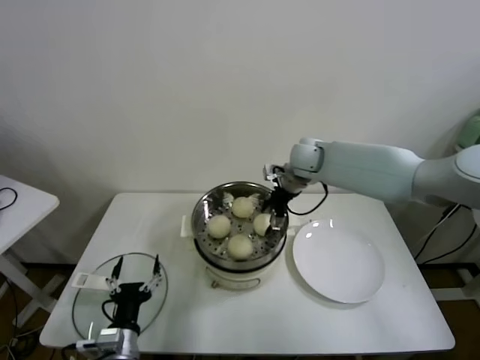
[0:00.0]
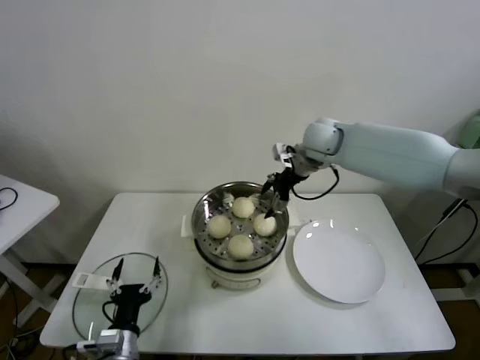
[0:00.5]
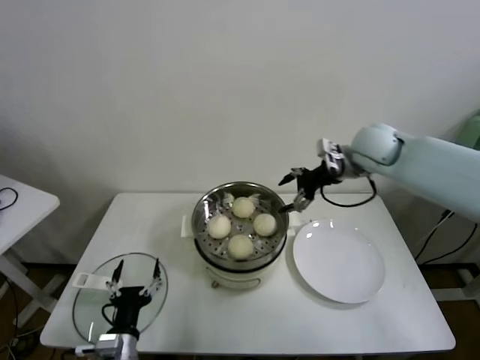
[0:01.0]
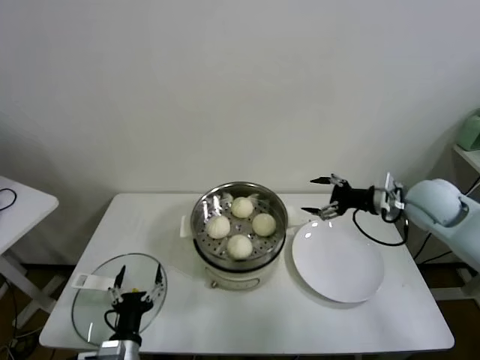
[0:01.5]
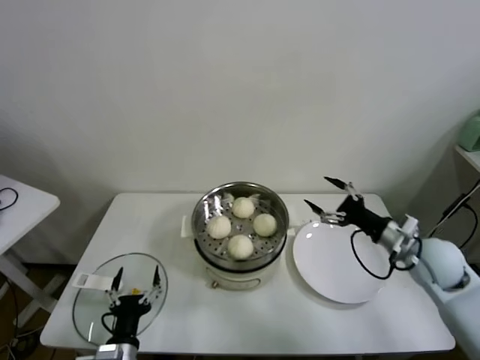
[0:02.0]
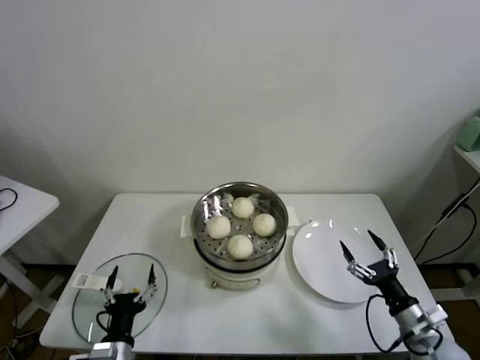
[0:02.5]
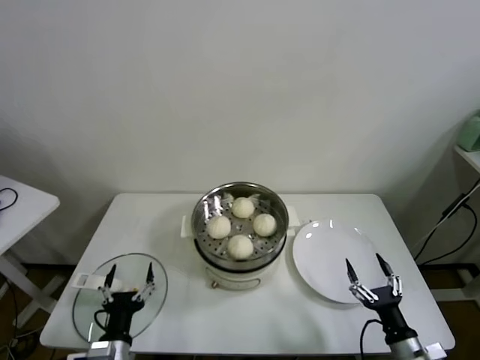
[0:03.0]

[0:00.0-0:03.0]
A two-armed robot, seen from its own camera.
Task of the whole recording: take steamed baozi put them in steamer.
0:00.0 to 0:01.5: The right gripper is displaced to the right and backward by about 25 cm.
0:01.5 to 0:03.0: The right gripper goes about 40 cm backward and downward.

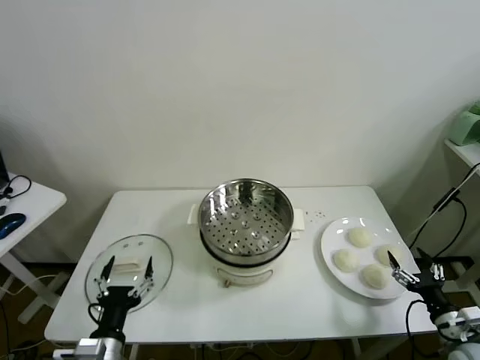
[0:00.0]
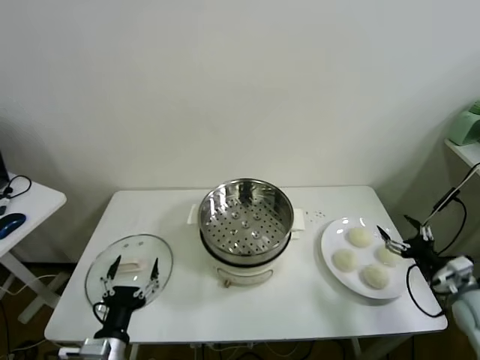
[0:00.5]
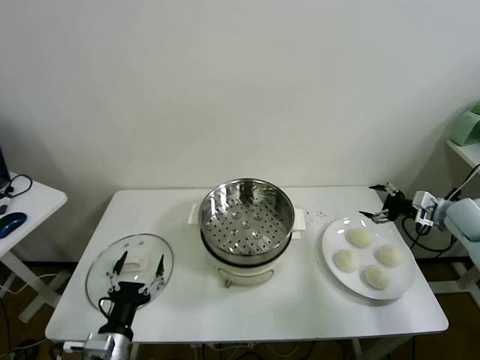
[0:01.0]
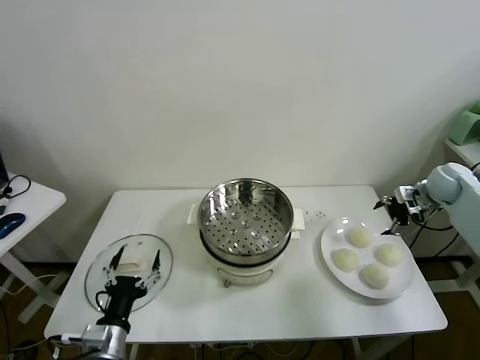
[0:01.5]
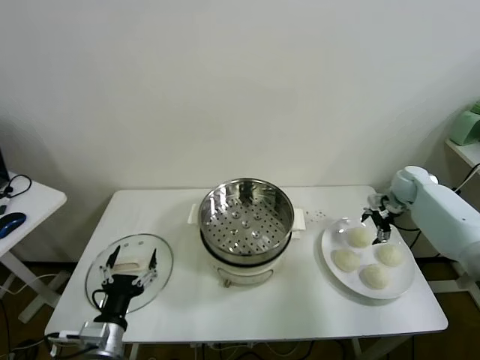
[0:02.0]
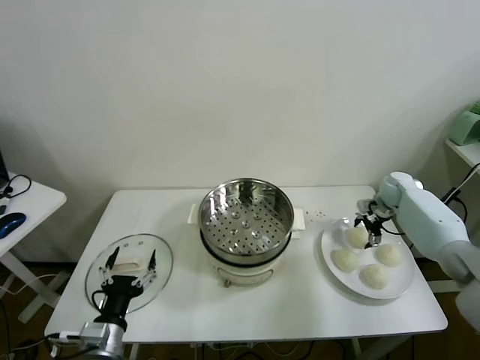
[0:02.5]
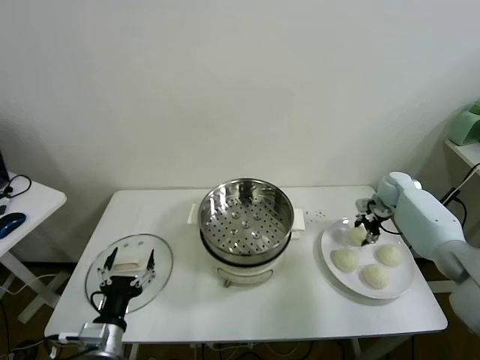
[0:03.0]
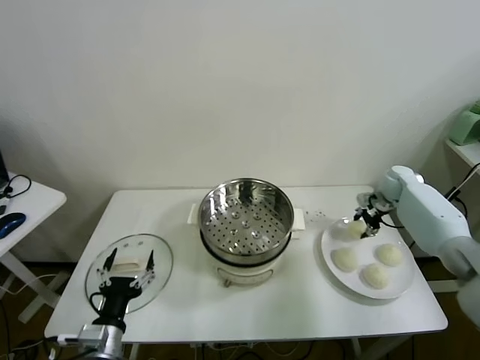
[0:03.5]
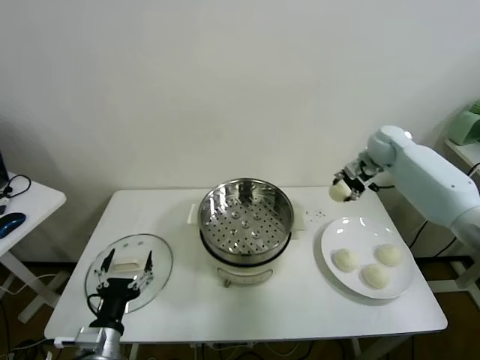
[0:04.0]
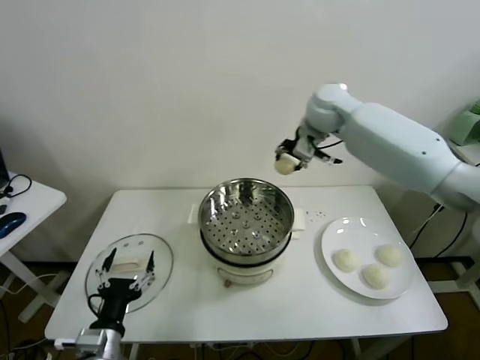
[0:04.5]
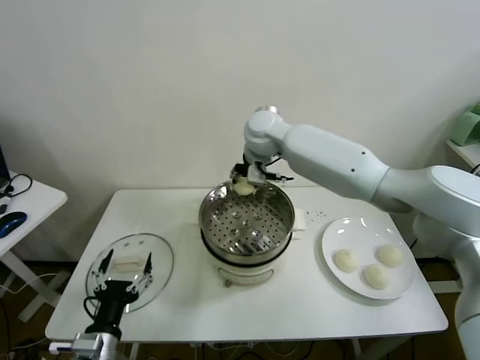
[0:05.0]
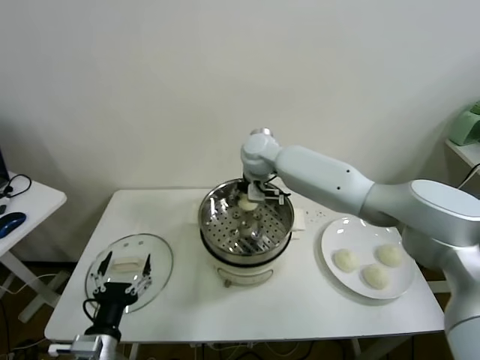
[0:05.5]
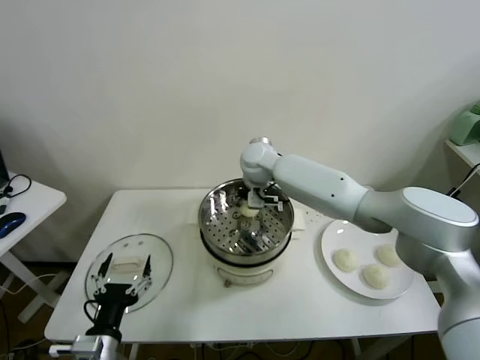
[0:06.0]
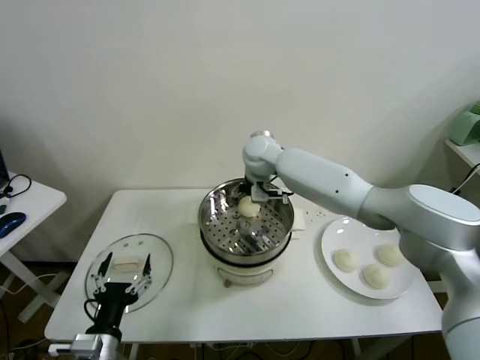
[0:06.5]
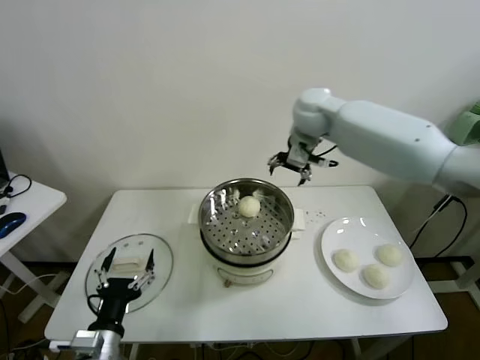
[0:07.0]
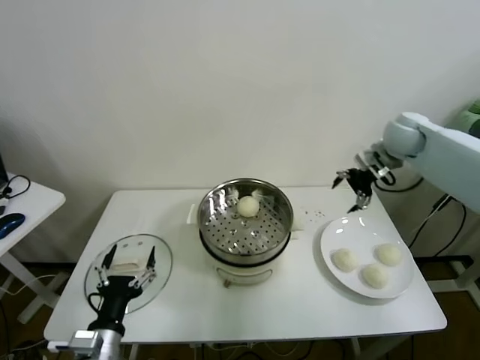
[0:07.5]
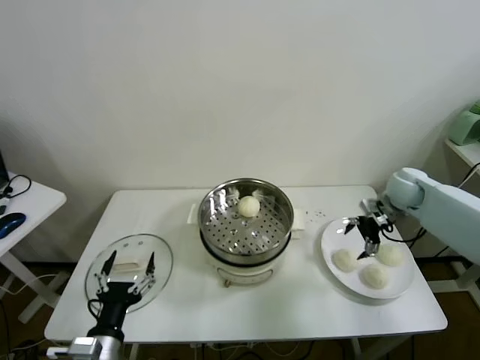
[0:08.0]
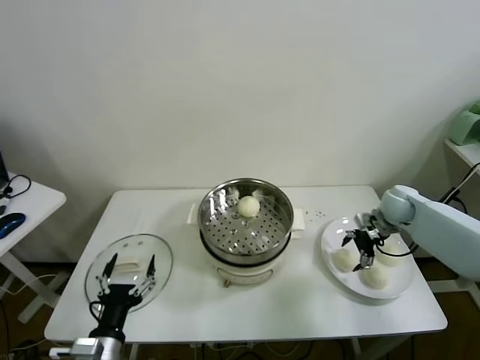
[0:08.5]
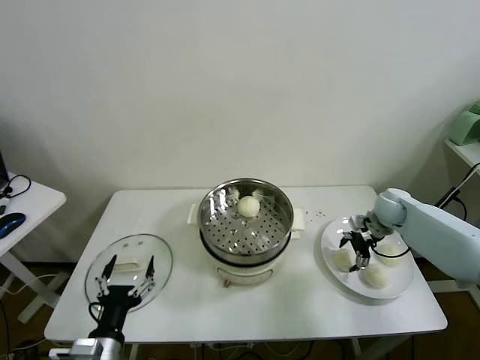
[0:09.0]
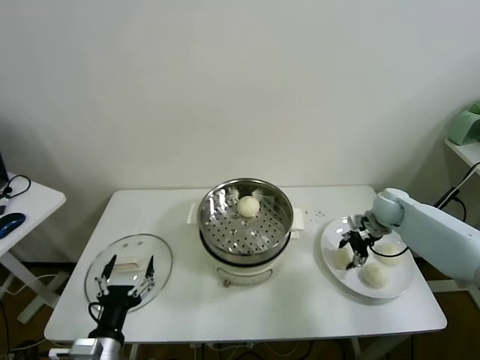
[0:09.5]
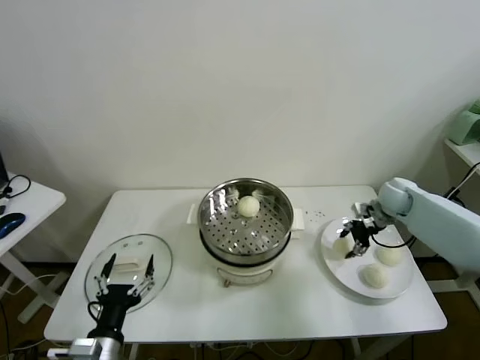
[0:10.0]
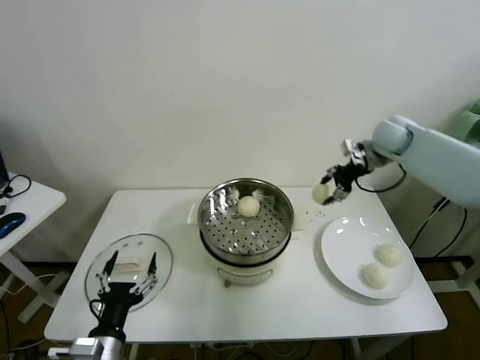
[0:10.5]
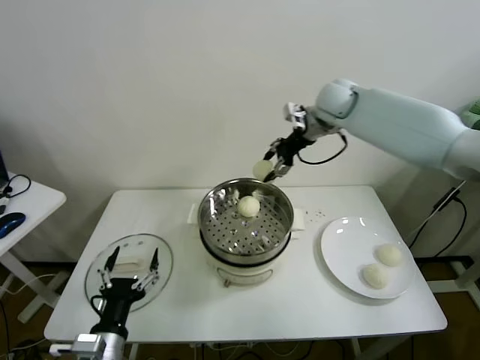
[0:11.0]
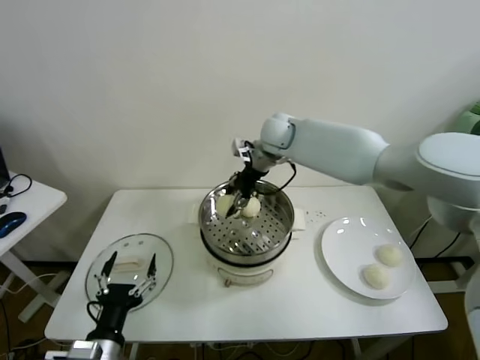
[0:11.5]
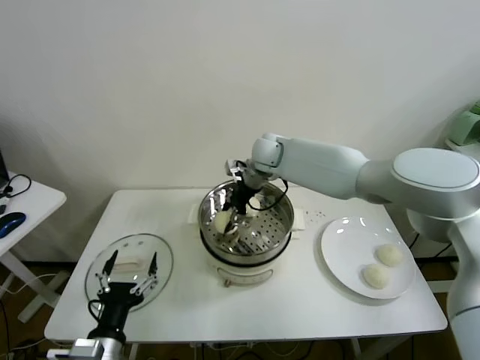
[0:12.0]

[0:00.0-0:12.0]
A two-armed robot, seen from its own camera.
Task of the whole recording: take steamed baozi put them in steamer.
Step, 0:00.0 to 0:03.0: Grasp the baozi in the plate with right gripper.
Step, 0:03.5 to 0:06.0: Place the baozi on the steamer with right gripper.
Step, 0:06.5 to 0:09.5: Grasp the baozi in the plate with right gripper.
0:02.0 to 0:04.0: The right gripper heads upward and to the left, covering about 20 cm, and closes up.
0:04.0 to 0:06.0: The right gripper heads to the left, covering about 30 cm, and opens up.
0:06.0 to 0:08.0: The right gripper shifts approximately 35 cm to the right.
0:08.0 to 0:10.0: The right gripper closes up.
0:10.0 to 0:12.0: The right gripper travels to the left by about 35 cm.

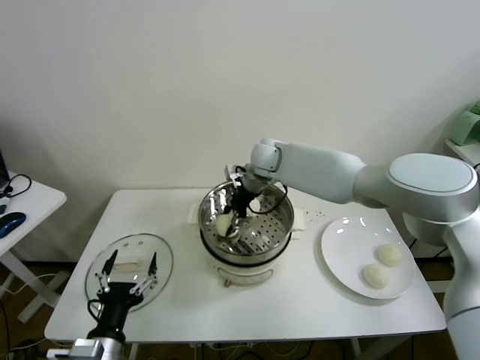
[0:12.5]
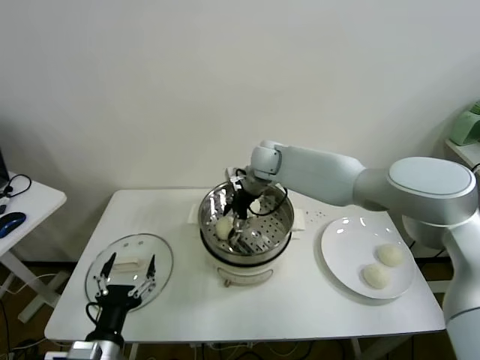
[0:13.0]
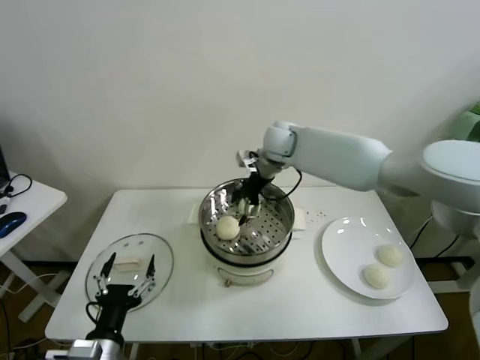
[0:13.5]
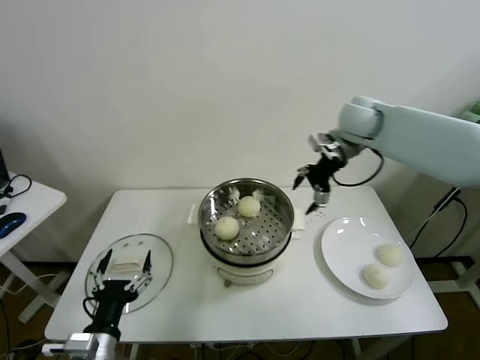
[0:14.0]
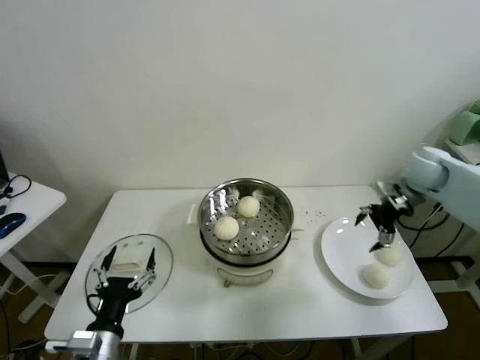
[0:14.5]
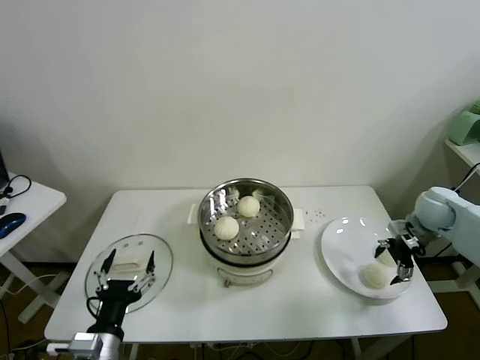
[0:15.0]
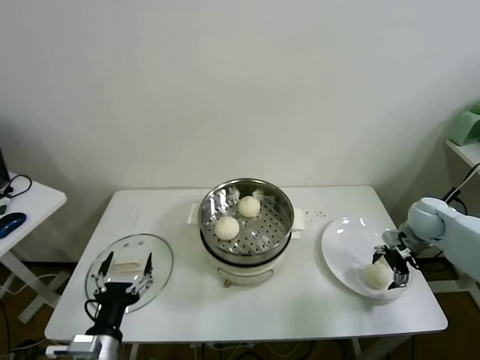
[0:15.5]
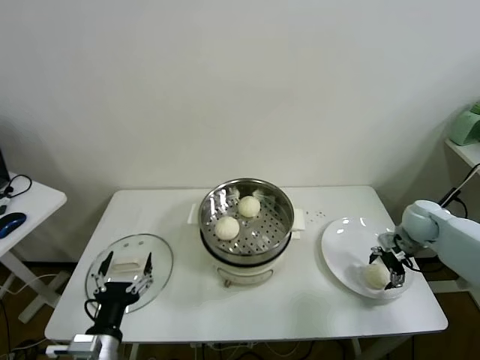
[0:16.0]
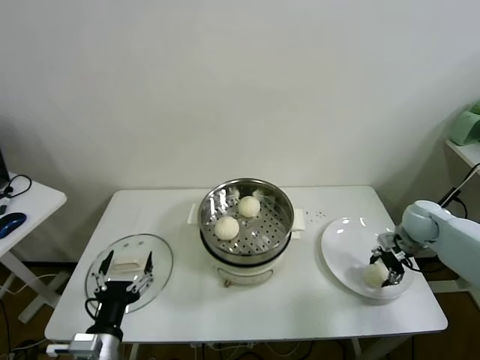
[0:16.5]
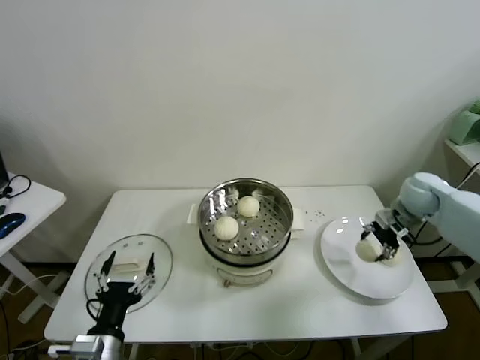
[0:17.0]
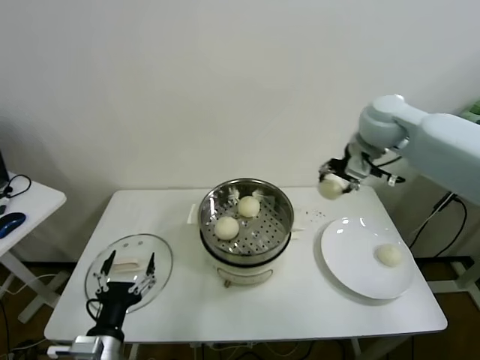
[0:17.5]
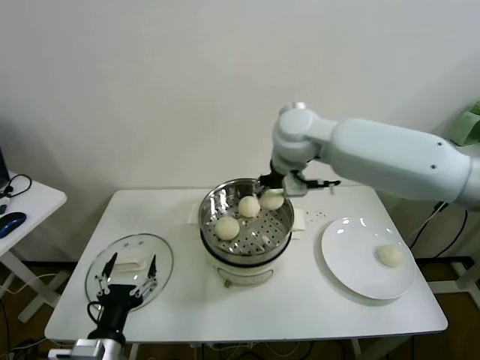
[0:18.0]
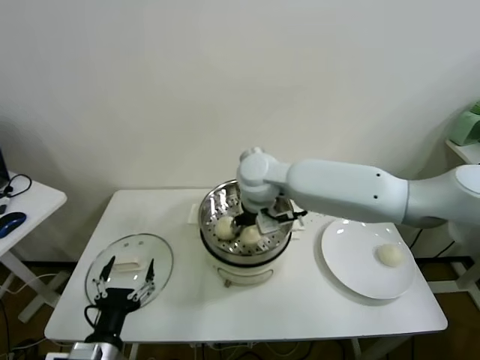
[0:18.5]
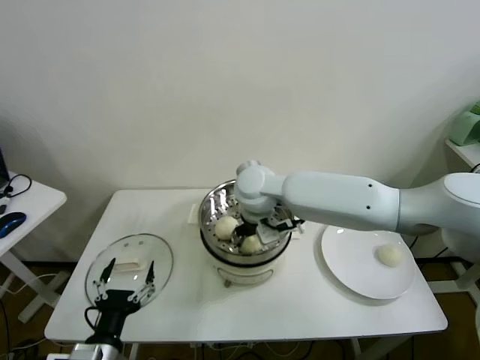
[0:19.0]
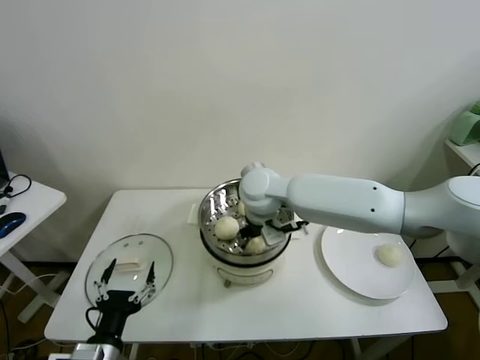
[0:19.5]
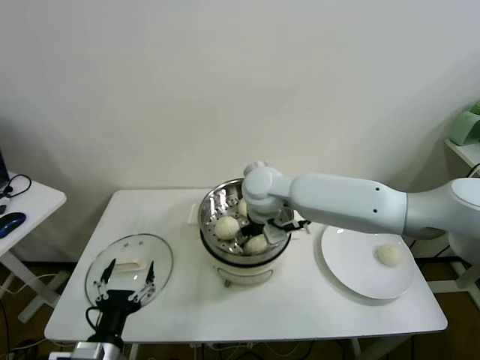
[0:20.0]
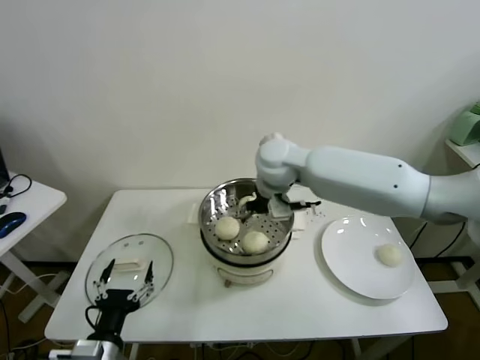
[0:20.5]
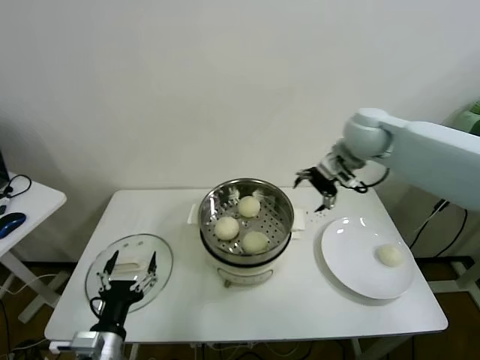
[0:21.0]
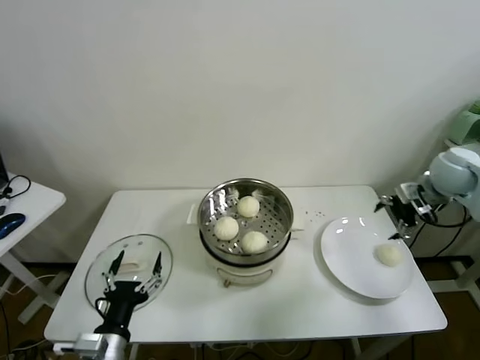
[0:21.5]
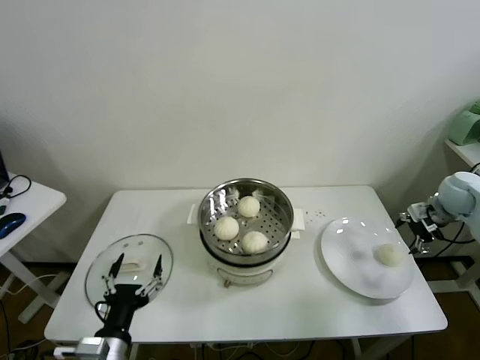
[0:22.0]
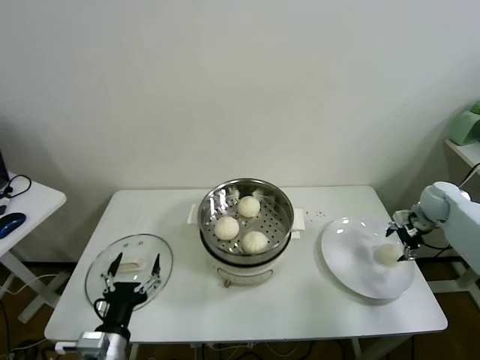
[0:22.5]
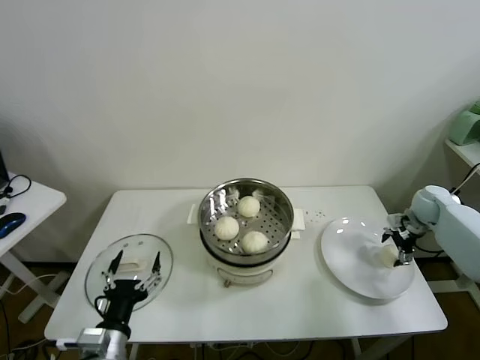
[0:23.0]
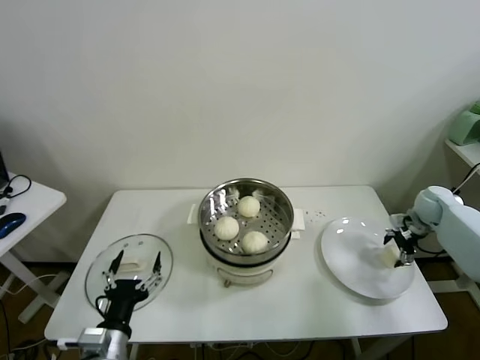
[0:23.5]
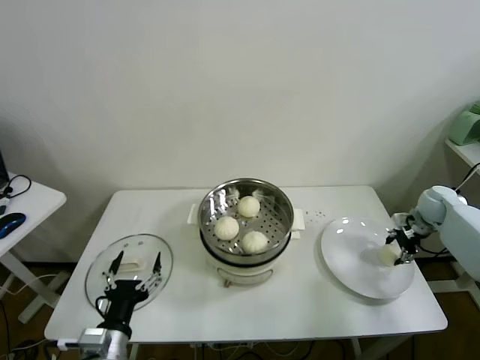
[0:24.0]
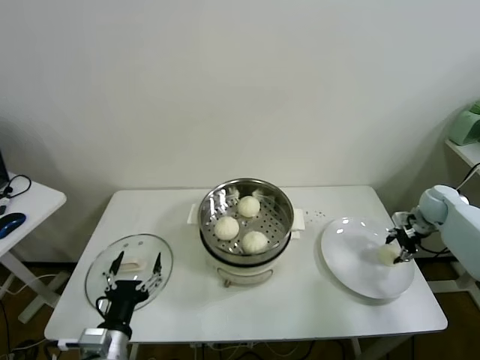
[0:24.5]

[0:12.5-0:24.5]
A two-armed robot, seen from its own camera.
Task of the whole recording: take steamed baozi put them in steamer.
Step, 0:13.5 to 0:16.0: Grasp the baozi in the plate with right gripper.
Step, 0:17.0 to 0:20.0: Place the baozi on the steamer with right gripper.
0:12.5 to 0:14.5: The right gripper shifts about 35 cm to the right, and opens up.
0:14.5 to 0:16.5: The right gripper goes some 15 cm downward, and closes.
0:16.5 to 0:18.5: The right gripper is displaced to the left by some 40 cm.
0:18.5 to 0:20.5: The right gripper opens its fingers.
0:20.5 to 0:22.5: The right gripper moves to the right, some 40 cm.
0:22.5 to 0:24.5: The right gripper closes up.
